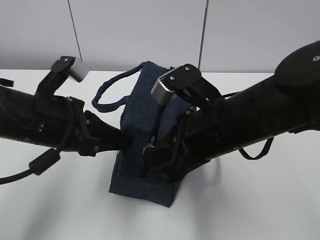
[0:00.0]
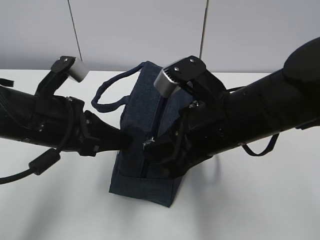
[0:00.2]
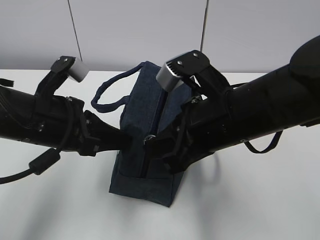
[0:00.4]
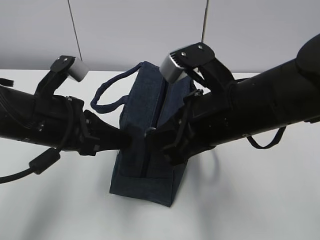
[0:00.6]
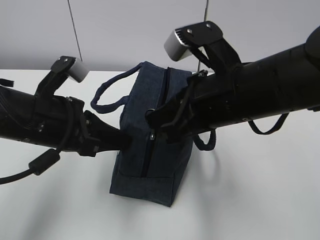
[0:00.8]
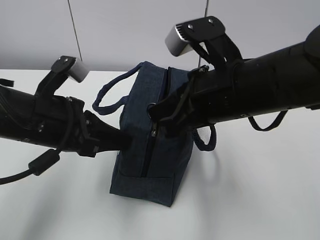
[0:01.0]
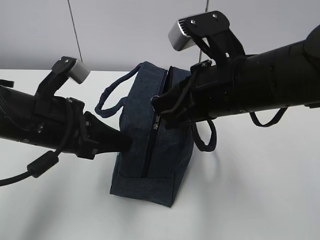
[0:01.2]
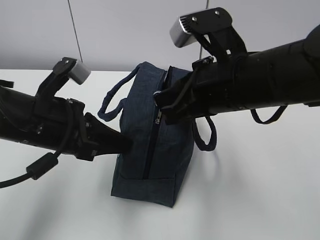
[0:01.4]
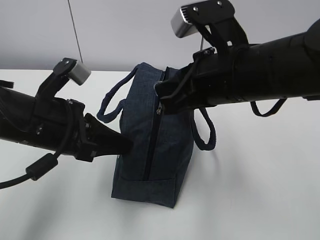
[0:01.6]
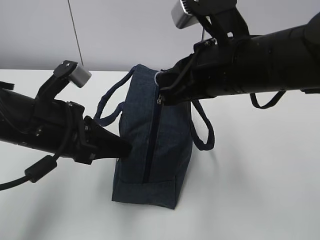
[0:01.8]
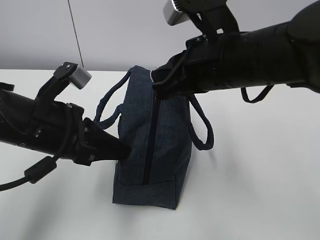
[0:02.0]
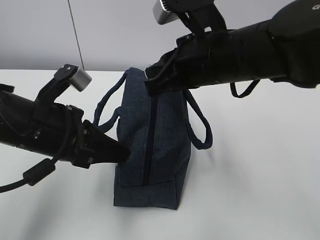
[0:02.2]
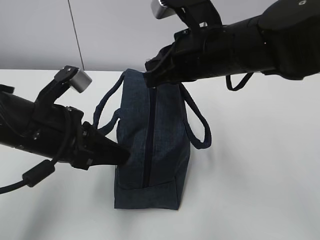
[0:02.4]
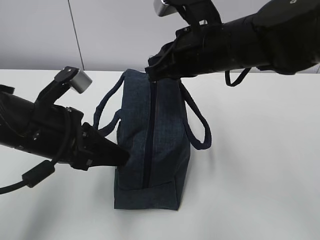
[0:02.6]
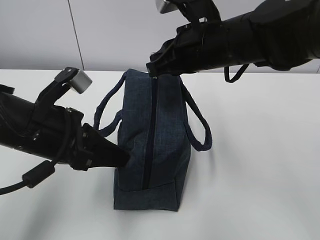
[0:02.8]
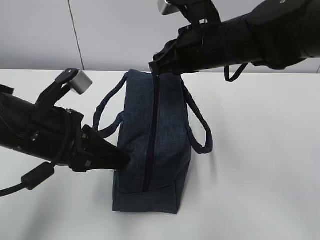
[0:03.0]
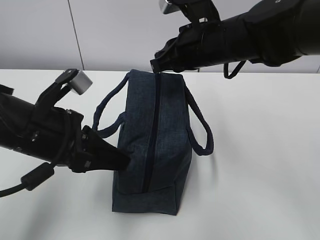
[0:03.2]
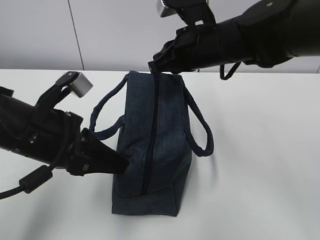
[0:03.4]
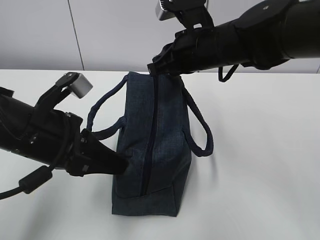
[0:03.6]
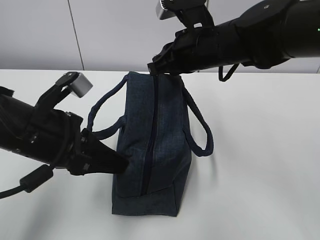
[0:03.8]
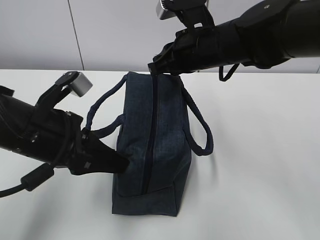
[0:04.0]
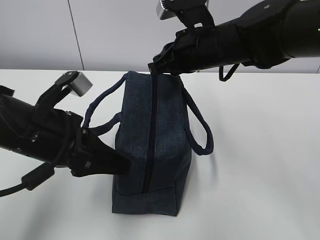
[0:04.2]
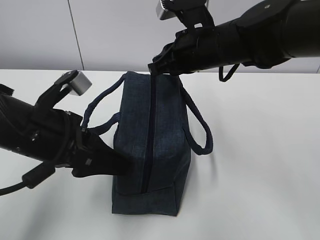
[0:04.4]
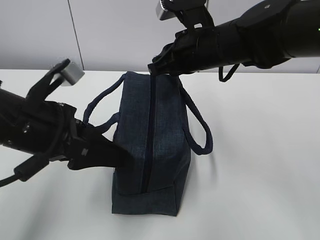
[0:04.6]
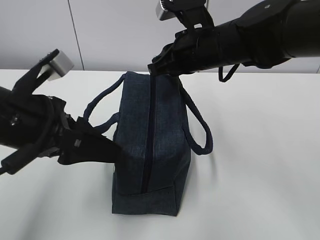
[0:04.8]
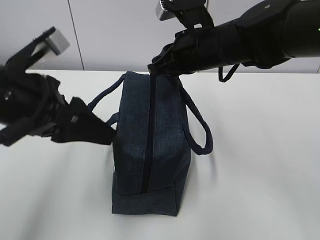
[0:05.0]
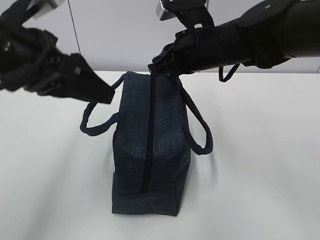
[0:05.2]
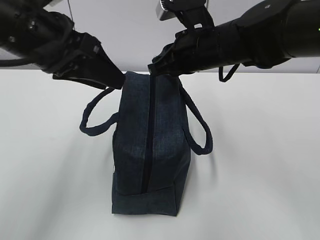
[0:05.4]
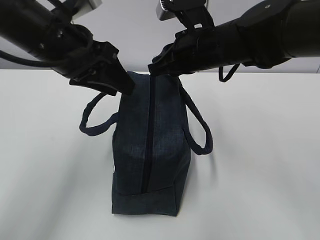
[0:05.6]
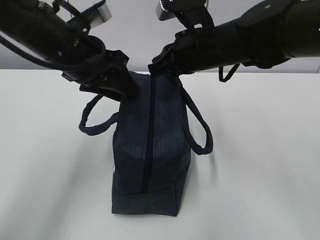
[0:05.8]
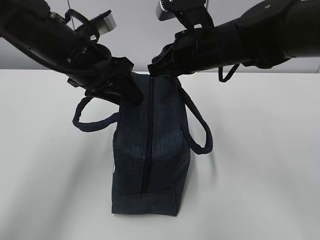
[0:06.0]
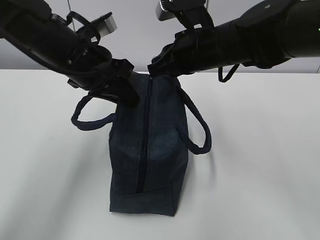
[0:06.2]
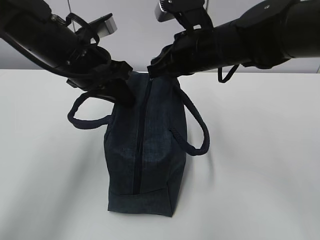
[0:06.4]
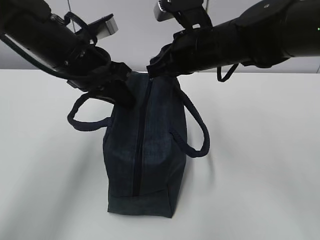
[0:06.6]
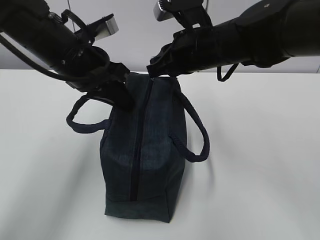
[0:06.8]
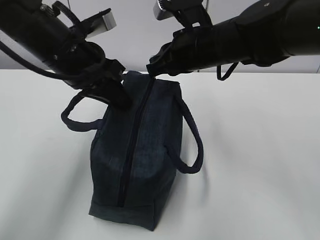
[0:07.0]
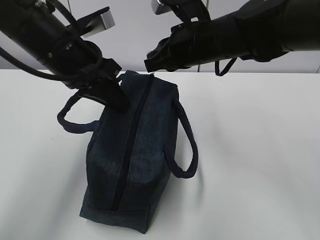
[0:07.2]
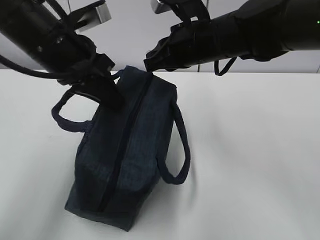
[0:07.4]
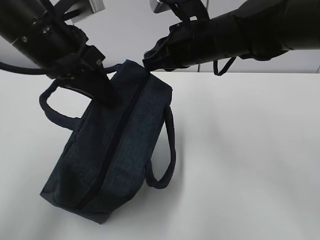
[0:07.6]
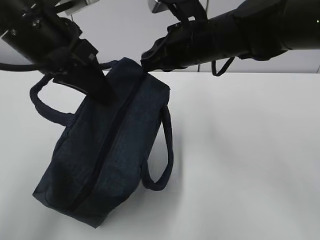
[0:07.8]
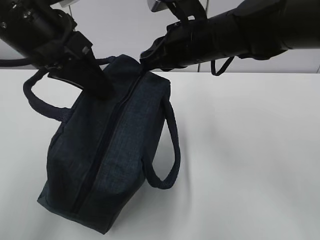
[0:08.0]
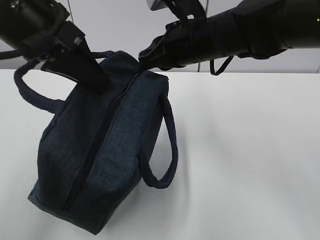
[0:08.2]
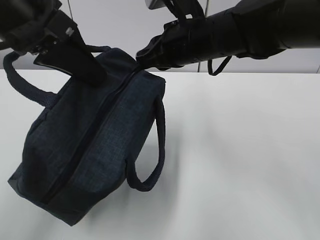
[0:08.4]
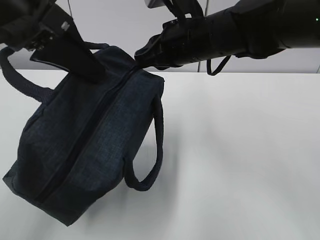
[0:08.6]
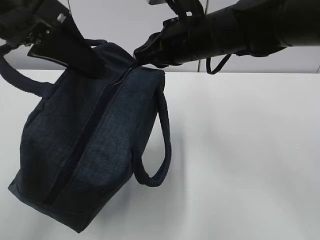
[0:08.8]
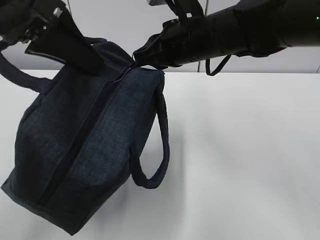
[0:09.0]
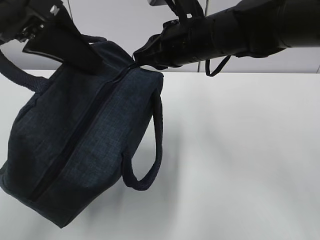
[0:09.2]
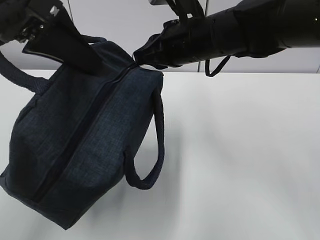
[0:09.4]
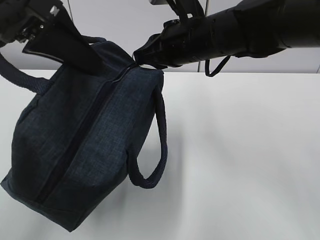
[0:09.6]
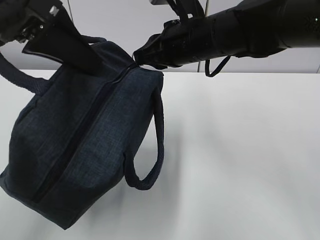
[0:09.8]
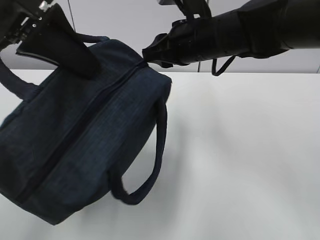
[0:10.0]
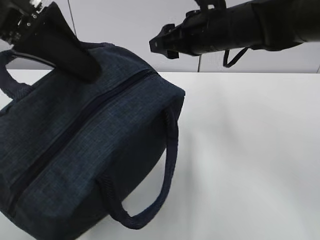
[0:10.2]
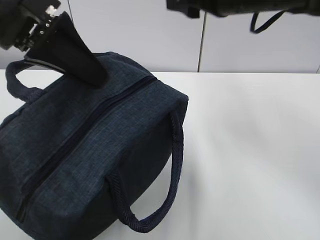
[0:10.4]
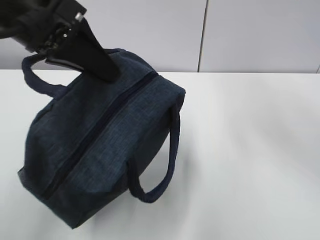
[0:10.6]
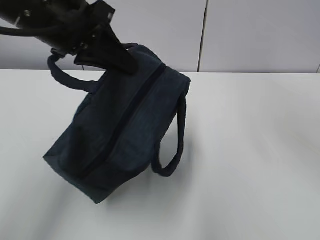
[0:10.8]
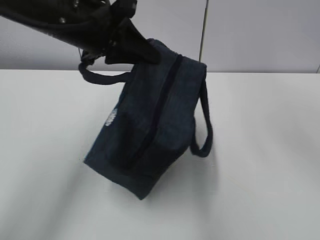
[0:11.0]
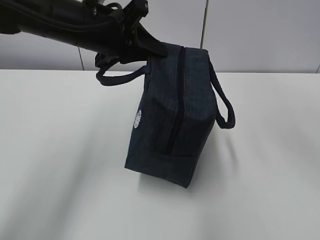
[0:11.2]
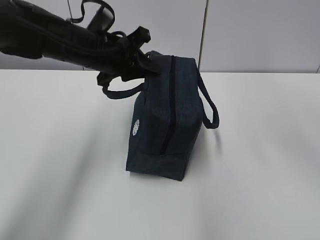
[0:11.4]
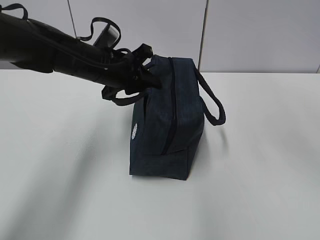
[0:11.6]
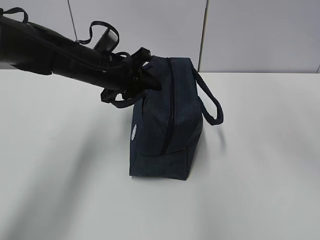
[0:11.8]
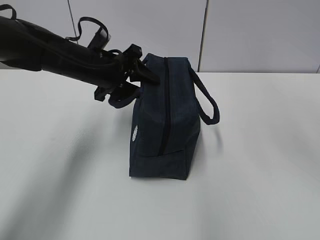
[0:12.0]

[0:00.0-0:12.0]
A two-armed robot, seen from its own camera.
0:00.0 to 0:01.6: The right gripper shifts some 5 cm upward.
0:01.6 to 0:03.0: The right gripper moves forward, some 10 cm.
0:03.0 to 0:04.4: The left gripper opens.
0:04.4 to 0:06.0: The left gripper travels forward by about 10 cm.
0:06.0 to 0:07.6: The left gripper moves upward, approximately 5 cm, and closes up.
0:07.6 to 0:09.0: The left gripper goes some 5 cm upward.
0:09.0 to 0:10.4: The right gripper is displaced upward and to the right by about 10 cm, and opens its fingers.
0:10.4 to 0:12.0: The left gripper travels downward and forward by roughly 20 cm, and opens its fingers, while the right gripper travels upward, backward and to the right by about 10 cm.

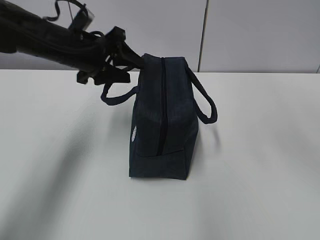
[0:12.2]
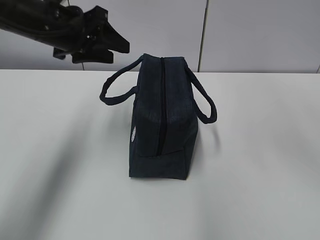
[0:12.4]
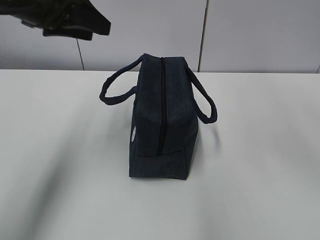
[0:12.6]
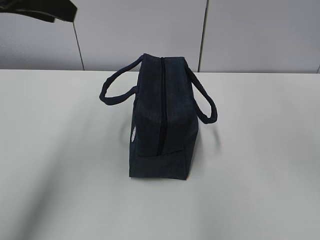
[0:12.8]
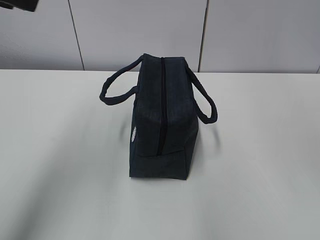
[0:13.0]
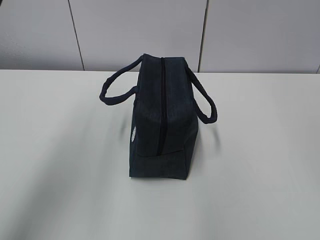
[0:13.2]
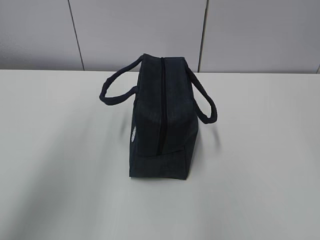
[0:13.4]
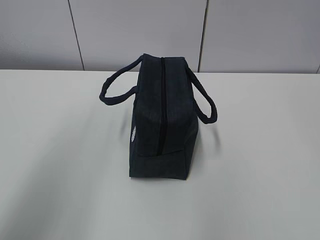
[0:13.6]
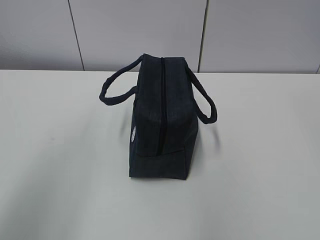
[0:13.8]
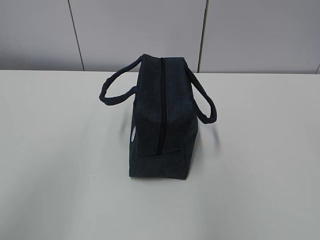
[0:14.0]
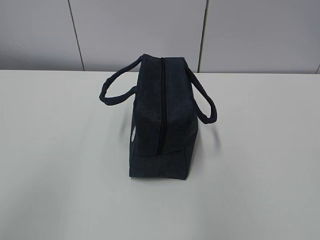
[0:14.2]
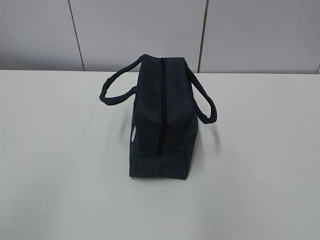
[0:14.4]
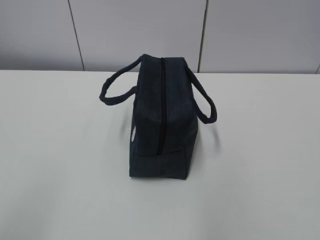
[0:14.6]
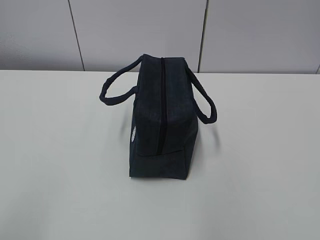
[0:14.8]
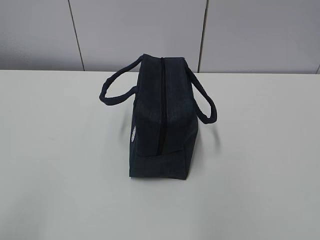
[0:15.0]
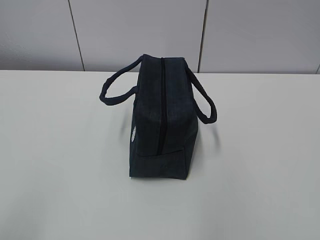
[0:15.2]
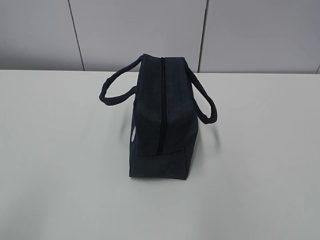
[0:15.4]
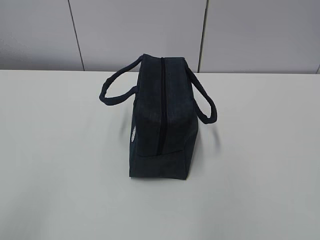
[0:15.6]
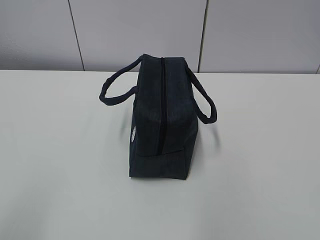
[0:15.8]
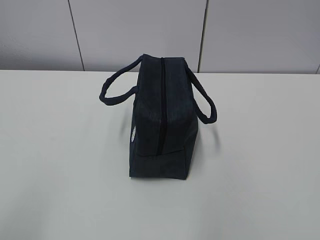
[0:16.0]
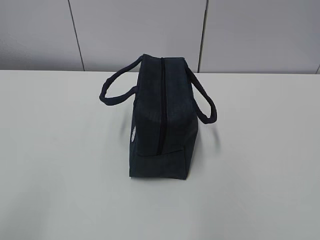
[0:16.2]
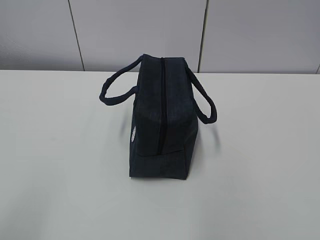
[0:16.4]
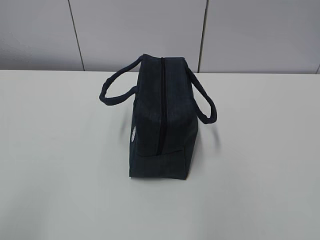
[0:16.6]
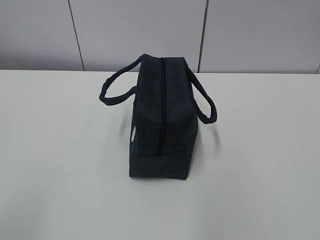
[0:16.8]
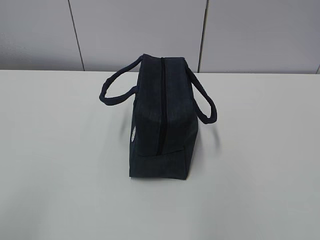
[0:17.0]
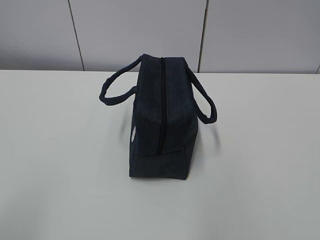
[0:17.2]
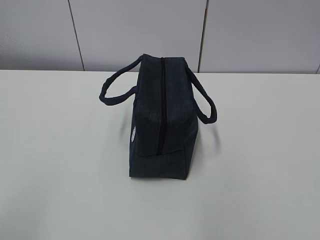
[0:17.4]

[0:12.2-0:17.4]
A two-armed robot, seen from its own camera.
0:12.2 to 0:14.0: The right gripper travels backward by about 30 cm. The left gripper is displaced backward, upward and to the left by roughly 40 cm.

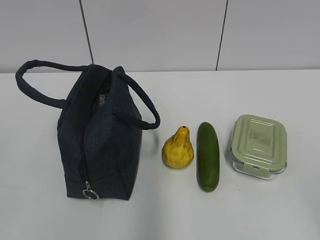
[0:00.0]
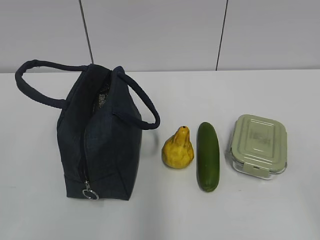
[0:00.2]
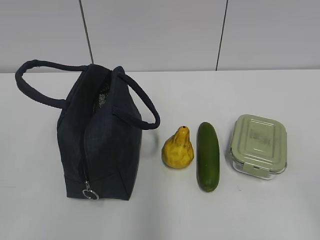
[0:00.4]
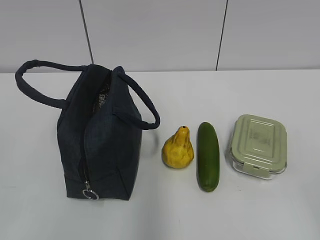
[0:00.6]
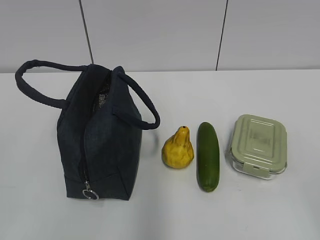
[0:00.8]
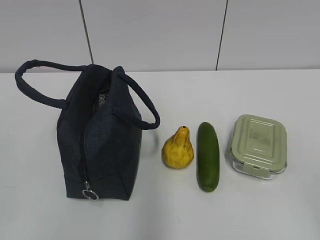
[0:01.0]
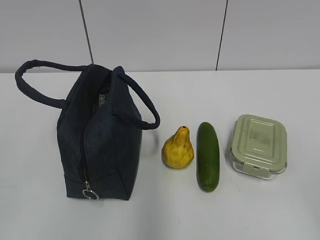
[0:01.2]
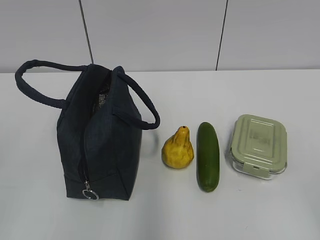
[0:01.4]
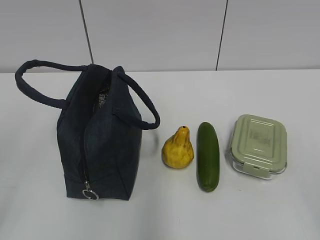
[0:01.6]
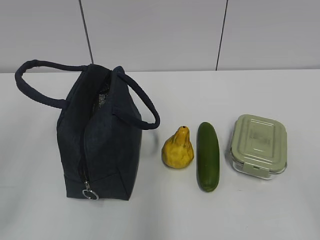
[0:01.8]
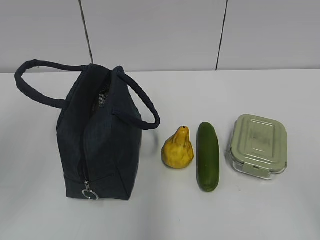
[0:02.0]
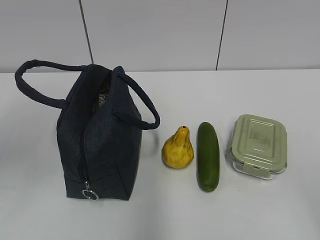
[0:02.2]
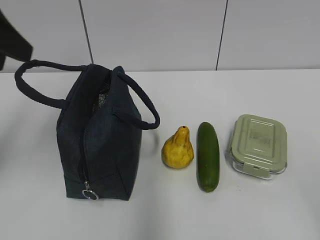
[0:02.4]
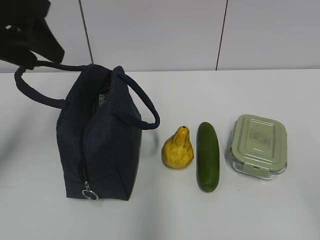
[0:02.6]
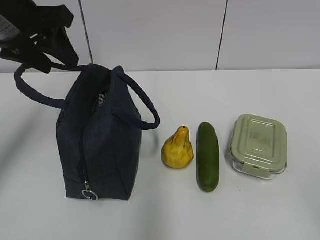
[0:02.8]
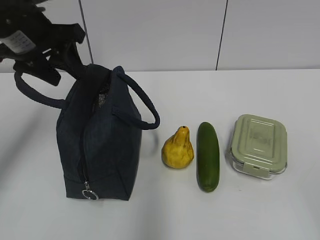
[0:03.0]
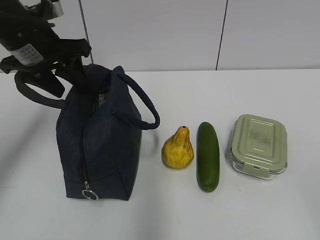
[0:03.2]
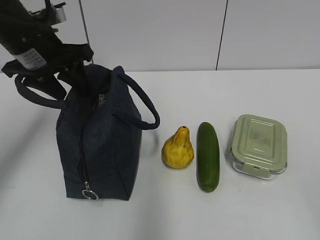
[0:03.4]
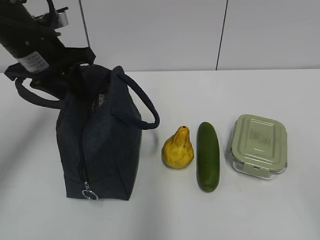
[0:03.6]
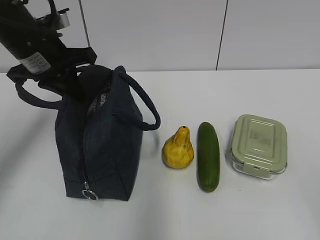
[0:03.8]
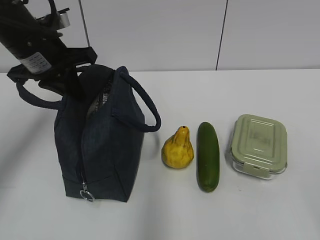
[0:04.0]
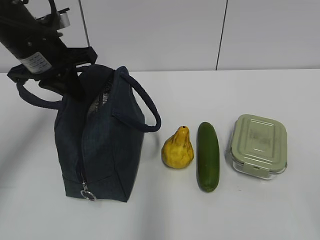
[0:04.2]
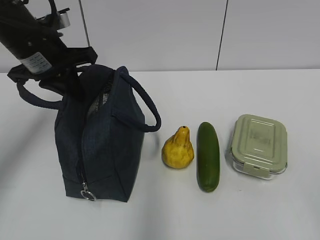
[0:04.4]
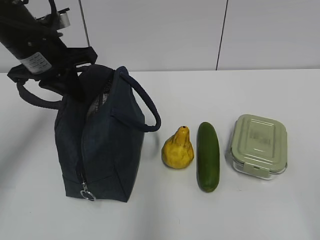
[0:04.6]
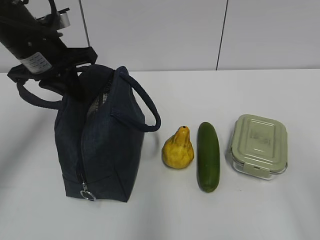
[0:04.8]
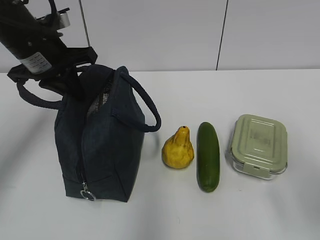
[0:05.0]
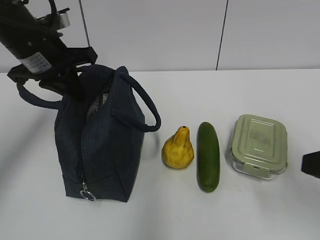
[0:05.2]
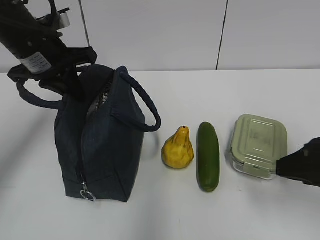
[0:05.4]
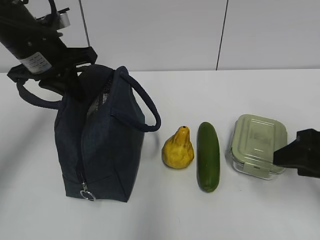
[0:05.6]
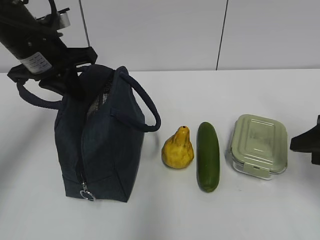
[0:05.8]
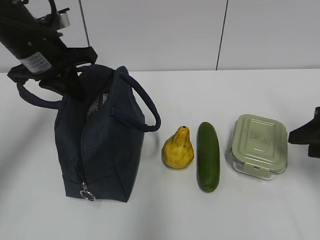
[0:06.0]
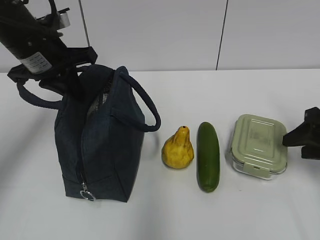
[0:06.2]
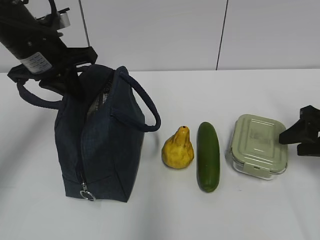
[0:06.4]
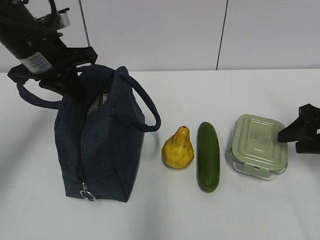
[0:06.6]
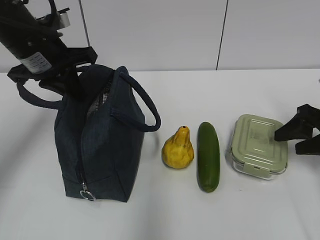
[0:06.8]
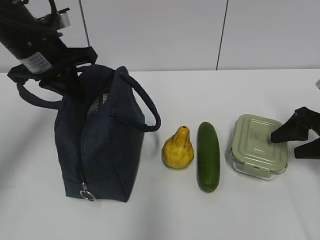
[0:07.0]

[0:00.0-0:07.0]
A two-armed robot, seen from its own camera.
0:01.4 to 0:02.8: The left gripper travels forward by some 30 cm.
0:02.8 to 0:04.2: The left gripper shifts some 5 cm downward, and closes up.
0:04.2 to 0:05.6: The right gripper goes about 20 cm forward.
0:05.6 to 0:07.0: The right gripper moves forward, to the right and downward, roughly 15 cm.
